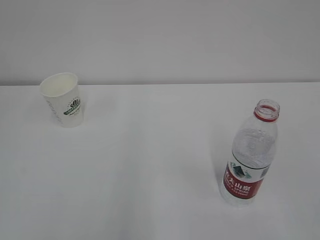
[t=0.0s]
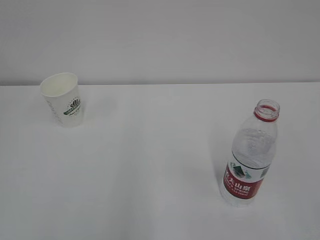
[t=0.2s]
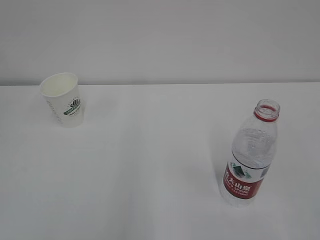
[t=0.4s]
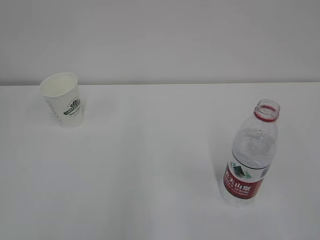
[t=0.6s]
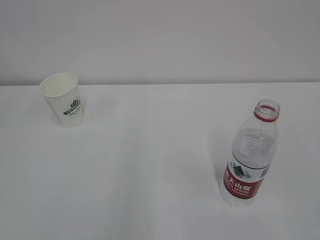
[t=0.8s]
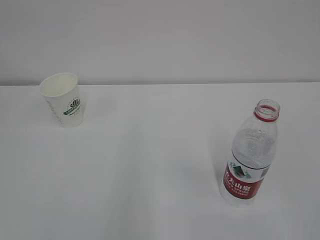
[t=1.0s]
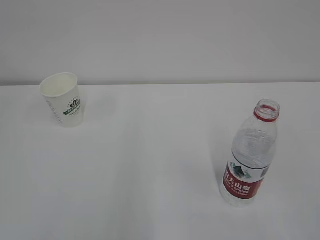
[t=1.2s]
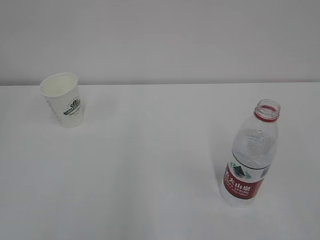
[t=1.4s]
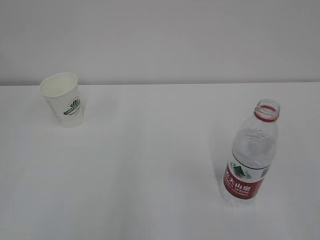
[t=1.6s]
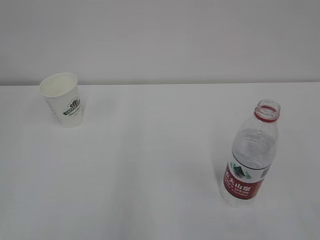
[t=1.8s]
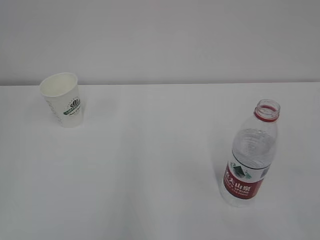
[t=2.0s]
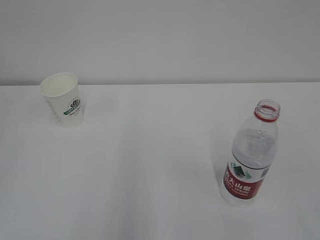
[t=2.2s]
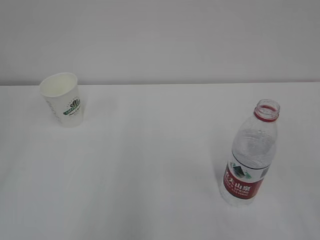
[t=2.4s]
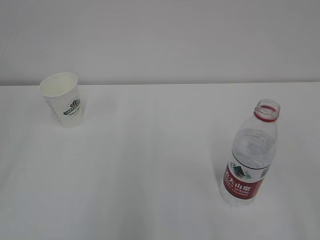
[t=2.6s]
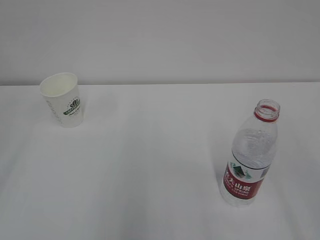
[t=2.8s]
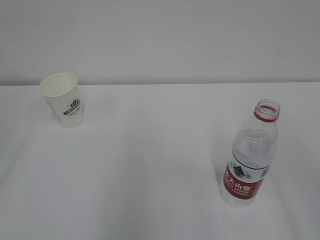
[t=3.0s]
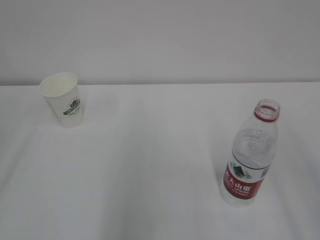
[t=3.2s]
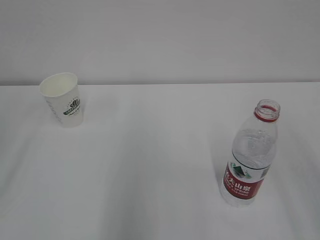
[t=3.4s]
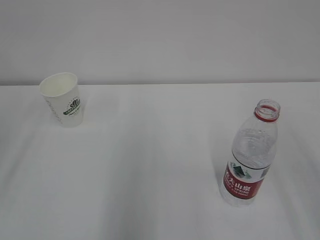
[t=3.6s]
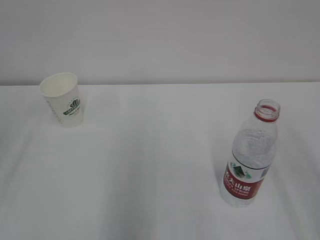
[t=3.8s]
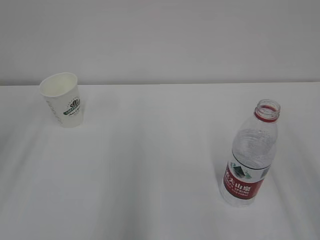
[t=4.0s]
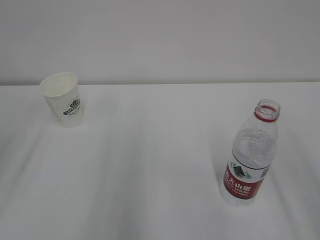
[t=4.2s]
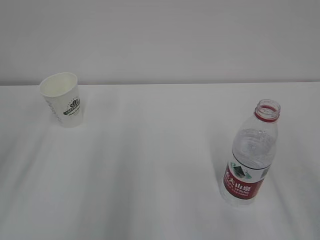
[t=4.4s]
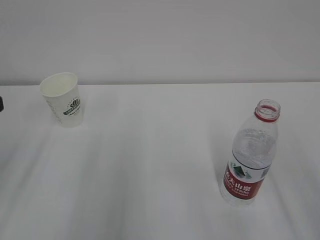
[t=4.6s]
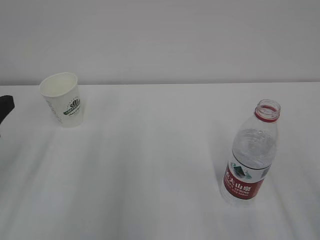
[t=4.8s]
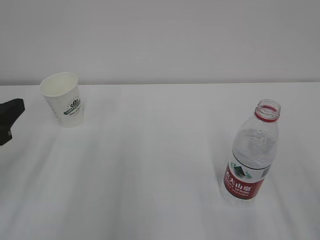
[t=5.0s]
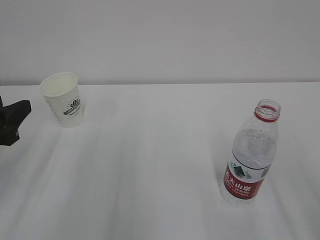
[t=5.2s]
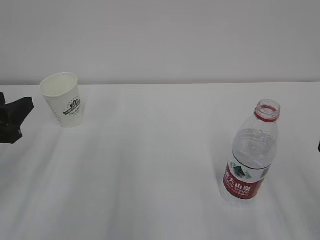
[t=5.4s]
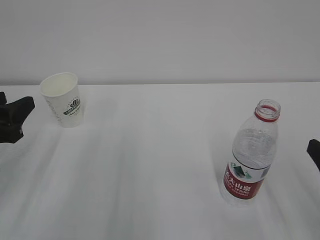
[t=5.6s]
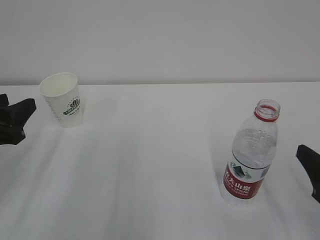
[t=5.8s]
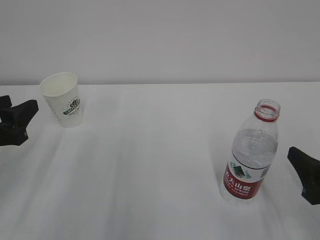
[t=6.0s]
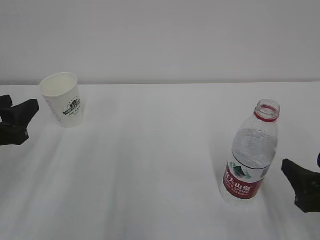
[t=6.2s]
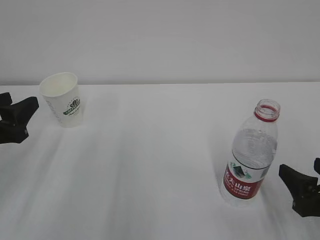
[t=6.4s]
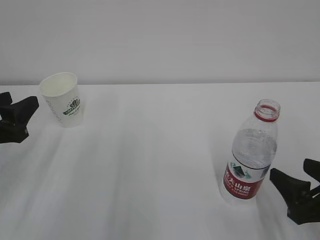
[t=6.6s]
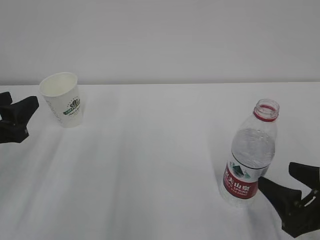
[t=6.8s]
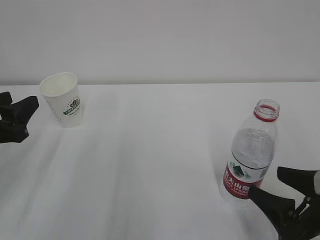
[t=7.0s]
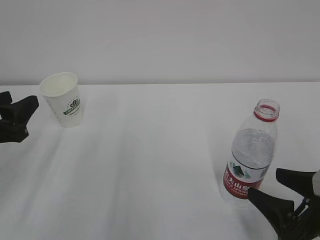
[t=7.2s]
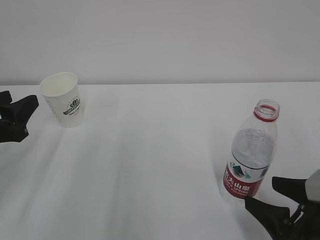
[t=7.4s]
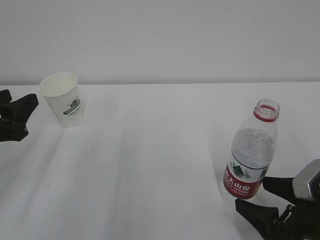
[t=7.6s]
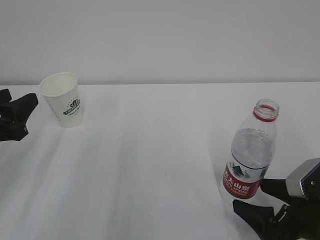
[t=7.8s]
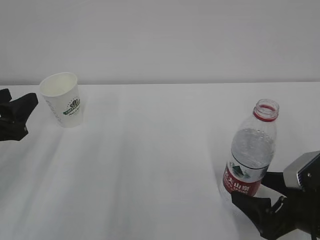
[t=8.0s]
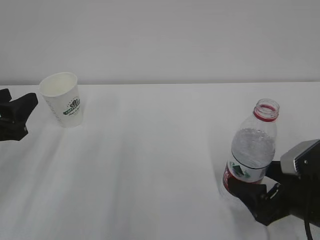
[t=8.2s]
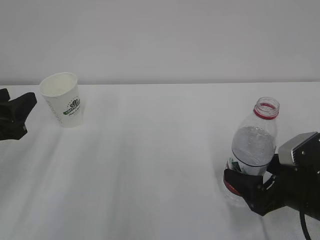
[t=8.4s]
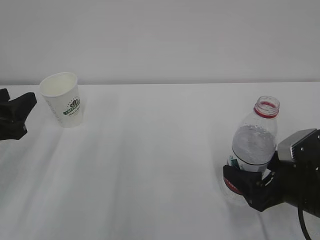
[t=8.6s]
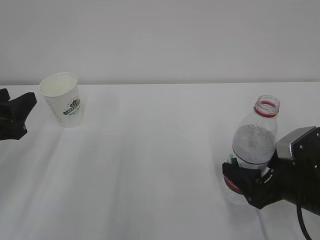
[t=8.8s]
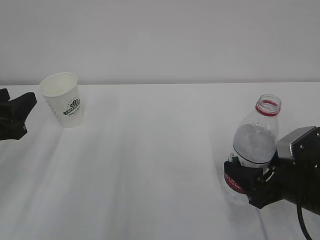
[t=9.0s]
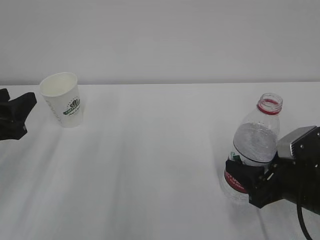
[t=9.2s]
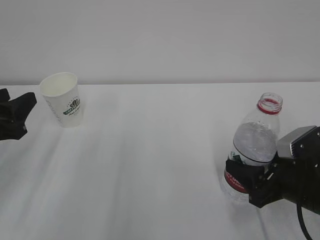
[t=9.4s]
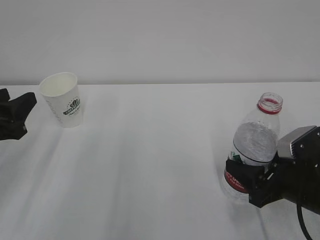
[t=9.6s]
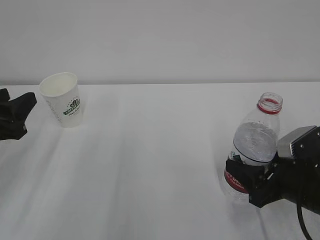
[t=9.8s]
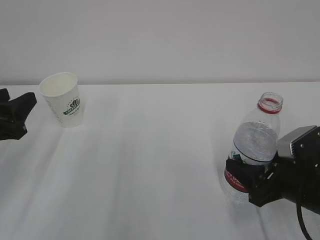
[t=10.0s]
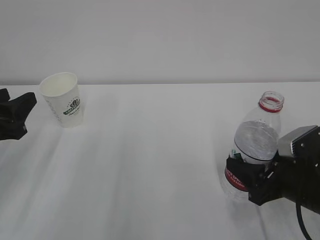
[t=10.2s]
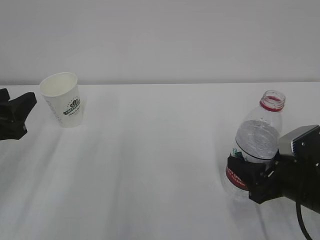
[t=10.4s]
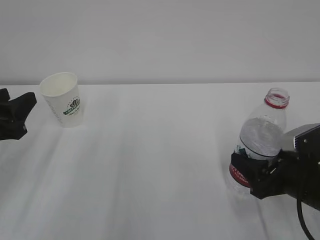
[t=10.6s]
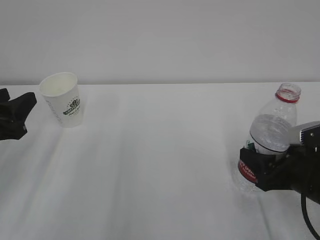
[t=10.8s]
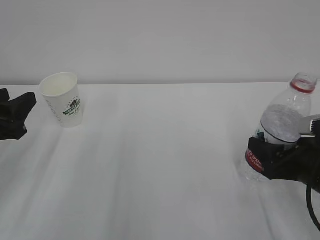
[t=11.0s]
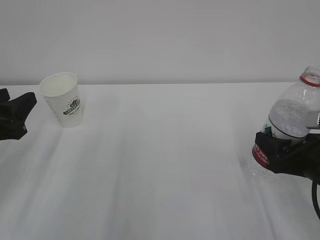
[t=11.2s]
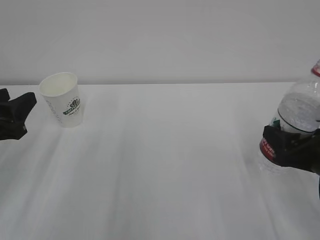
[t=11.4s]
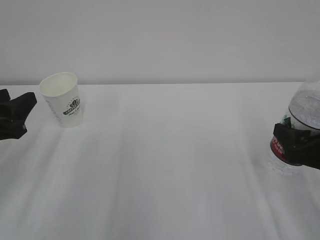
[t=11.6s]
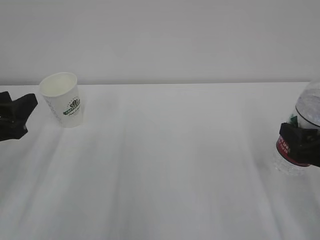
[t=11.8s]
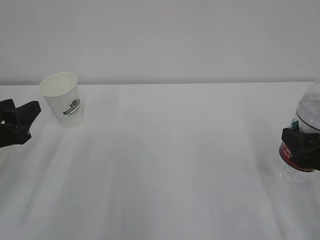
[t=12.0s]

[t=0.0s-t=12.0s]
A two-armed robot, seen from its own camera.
t=4.4s to t=6.0s: The right gripper goes approximately 15 cm downward and forward, while the left gripper goes roughly 10 cm downward.
t=6.0s to t=7.6s: The right gripper shifts by some 5 cm.
t=7.6s to t=9.0s: The right gripper heads forward, covering about 5 cm.
t=9.0s to t=10.4s: Neither gripper changes place.
t=10.4s to t=12.0s: The right gripper shifts some 5 cm upward.

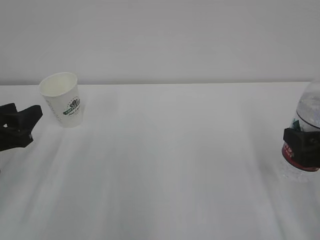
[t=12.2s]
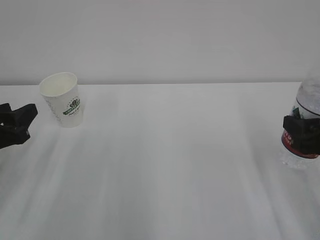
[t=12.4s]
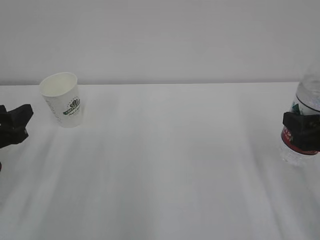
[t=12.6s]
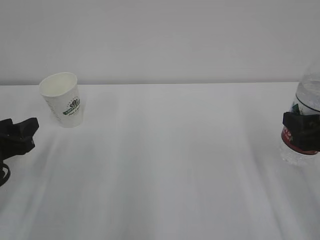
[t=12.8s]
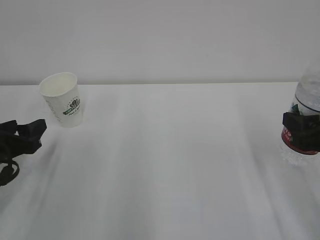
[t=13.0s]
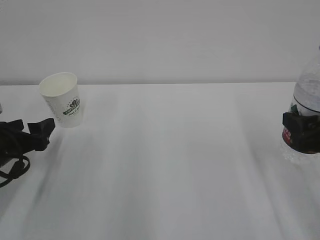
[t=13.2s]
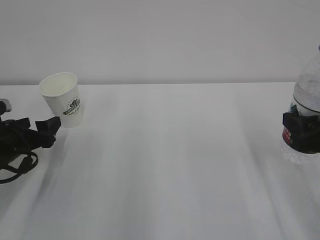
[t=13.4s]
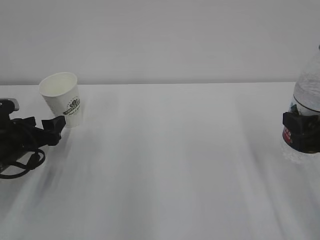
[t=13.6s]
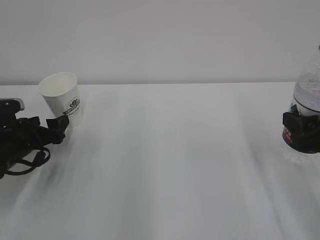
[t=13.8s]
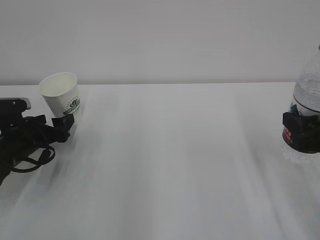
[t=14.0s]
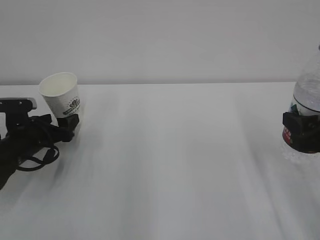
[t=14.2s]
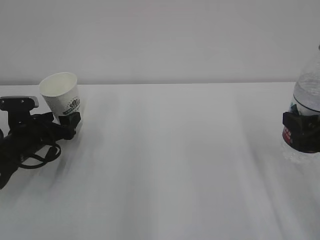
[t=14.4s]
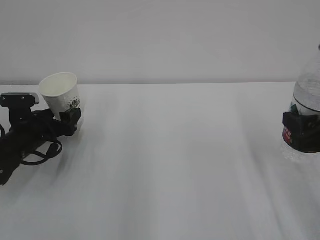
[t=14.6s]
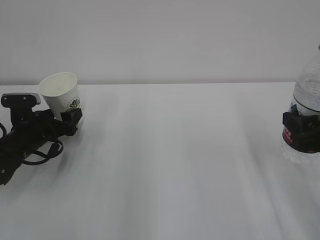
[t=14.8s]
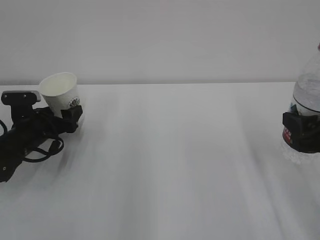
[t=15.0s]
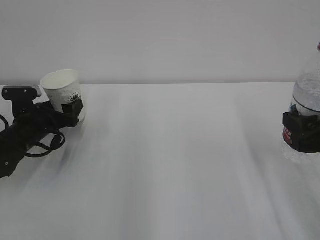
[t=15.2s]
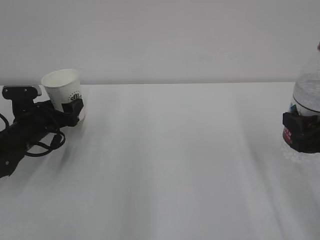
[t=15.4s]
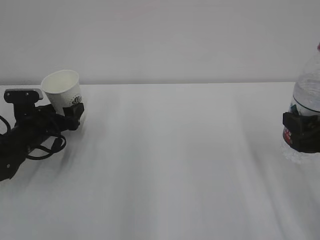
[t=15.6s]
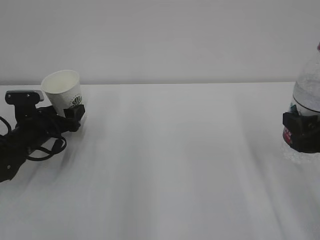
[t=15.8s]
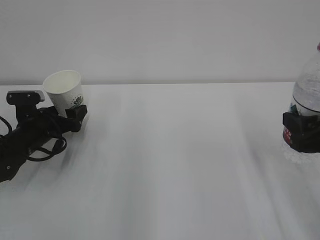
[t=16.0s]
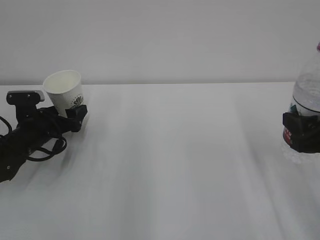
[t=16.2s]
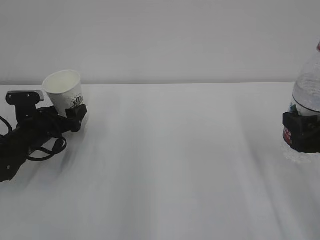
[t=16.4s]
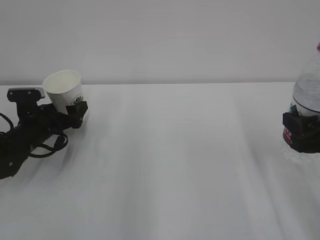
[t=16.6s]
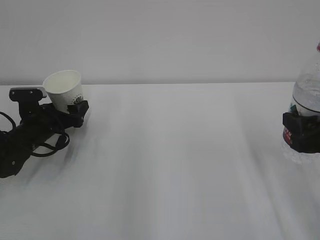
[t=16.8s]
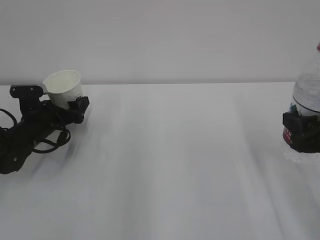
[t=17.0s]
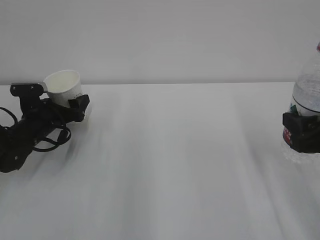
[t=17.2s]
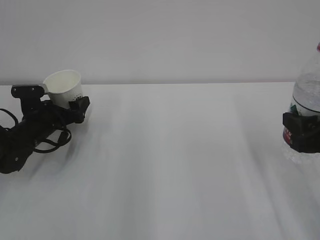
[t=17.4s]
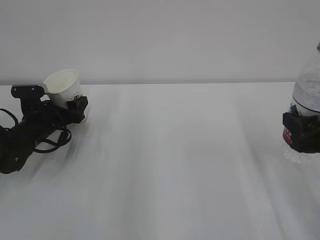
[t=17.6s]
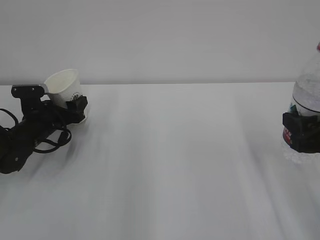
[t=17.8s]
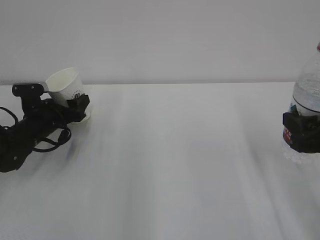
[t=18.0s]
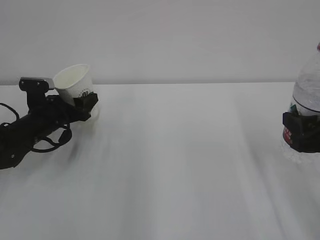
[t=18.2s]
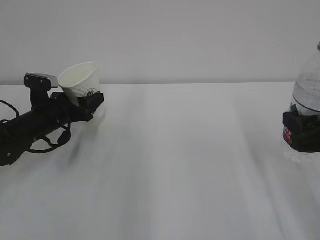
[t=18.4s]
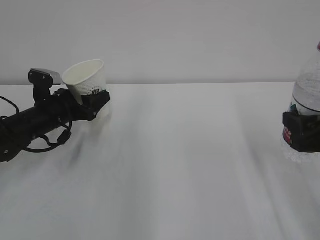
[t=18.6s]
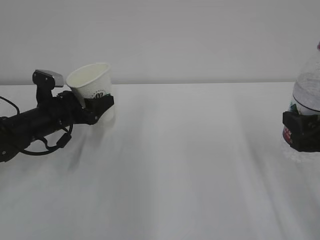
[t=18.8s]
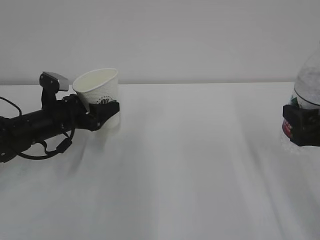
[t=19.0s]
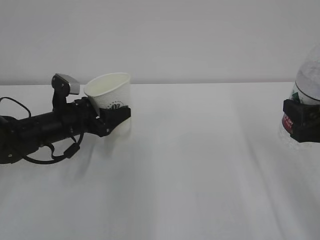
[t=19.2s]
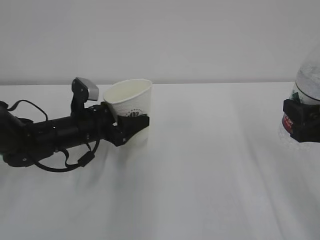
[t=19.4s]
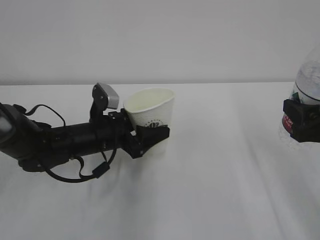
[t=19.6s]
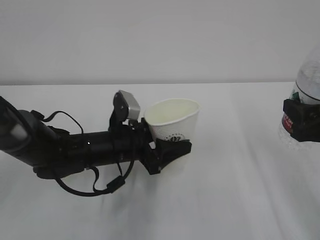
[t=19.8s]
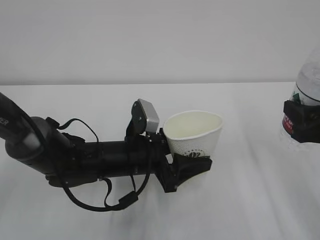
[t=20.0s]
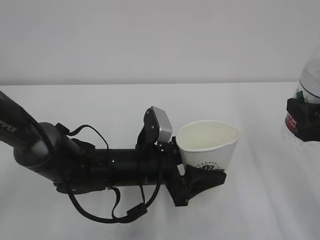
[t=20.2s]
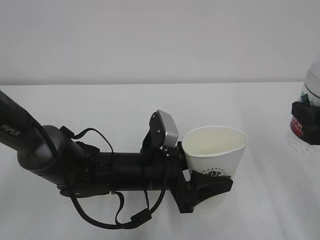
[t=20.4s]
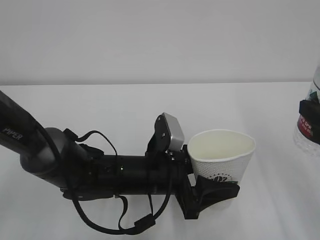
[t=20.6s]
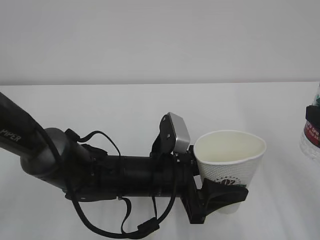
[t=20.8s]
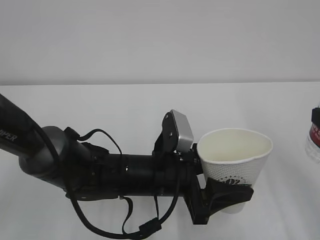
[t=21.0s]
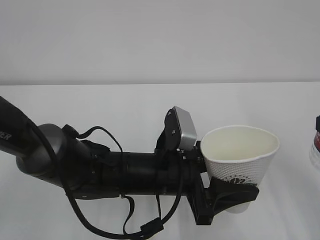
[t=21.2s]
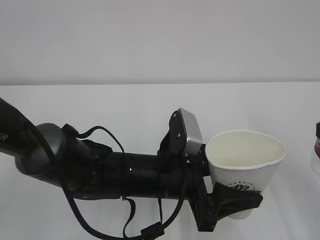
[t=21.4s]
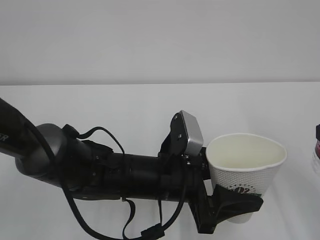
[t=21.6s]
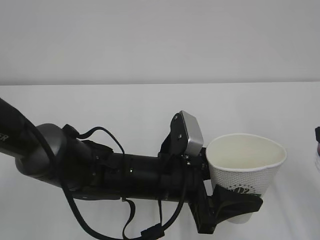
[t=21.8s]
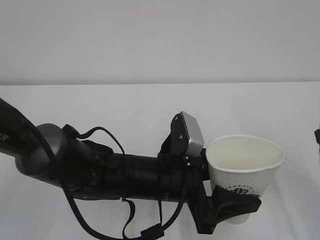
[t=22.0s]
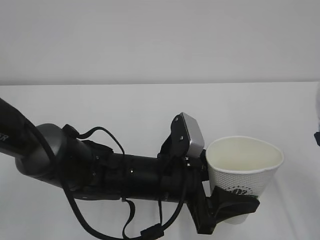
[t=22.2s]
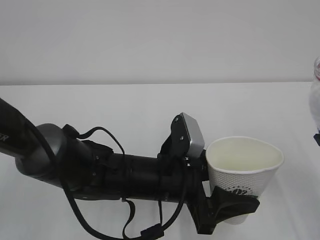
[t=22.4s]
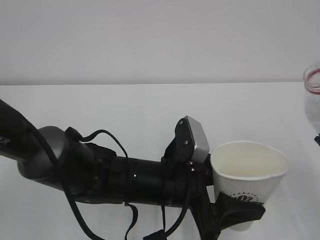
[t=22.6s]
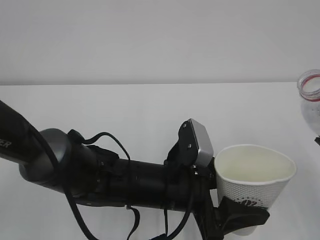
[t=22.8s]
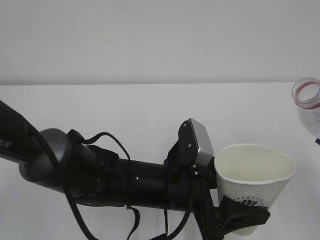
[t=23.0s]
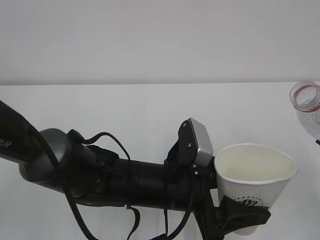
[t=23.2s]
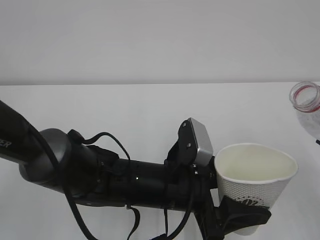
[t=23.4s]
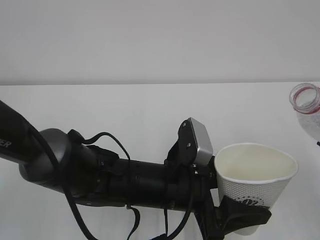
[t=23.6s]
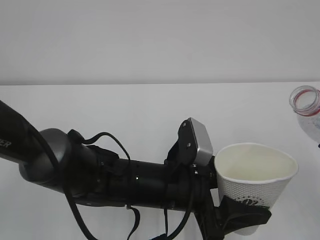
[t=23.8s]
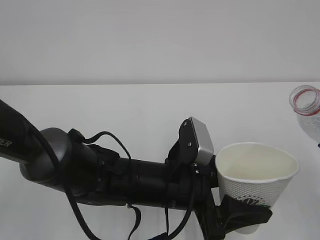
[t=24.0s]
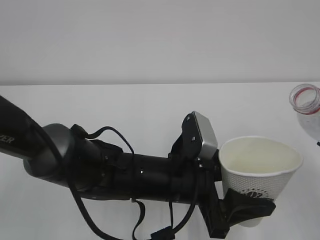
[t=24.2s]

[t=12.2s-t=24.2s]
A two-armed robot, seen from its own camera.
t=12.2s to t=13.8s: The left gripper goes roughly 10 cm forward and downward, and opens up.
t=13.8s to t=15.2s: The left gripper goes approximately 5 cm forward.
t=15.2s to t=16.6s: The two grippers keep their place.
t=16.6s to t=18.2s: The left gripper closes up.
t=18.2s to t=19.8s: The left gripper goes some 20 cm to the right and backward.
t=19.8s to t=21.2s: The left gripper heads to the right and backward, covering about 10 cm, while the right gripper shifts some 5 cm backward.
t=22.6s to t=24.2s: The grippers make only small movements.
